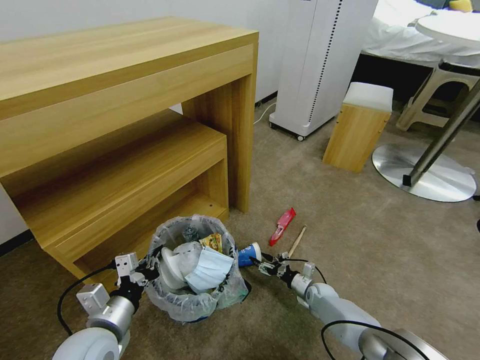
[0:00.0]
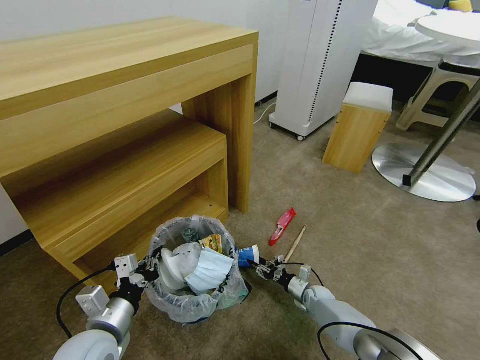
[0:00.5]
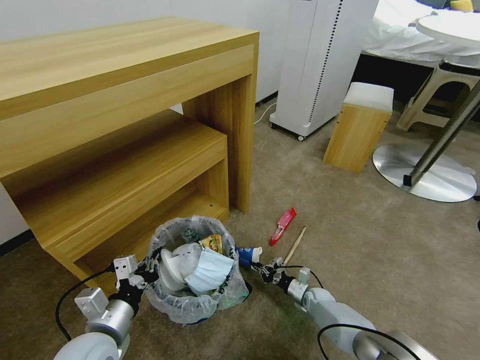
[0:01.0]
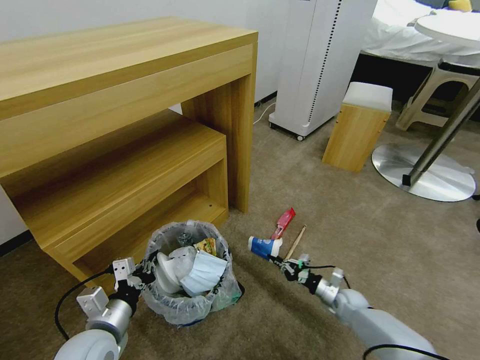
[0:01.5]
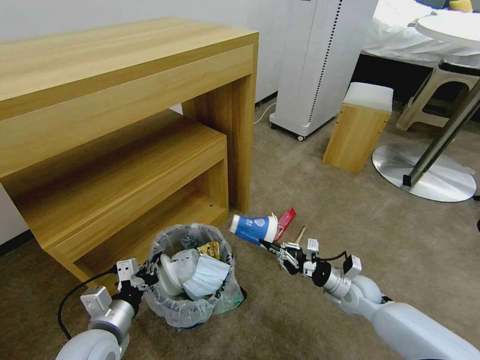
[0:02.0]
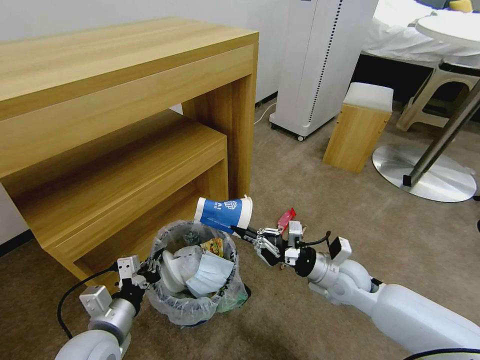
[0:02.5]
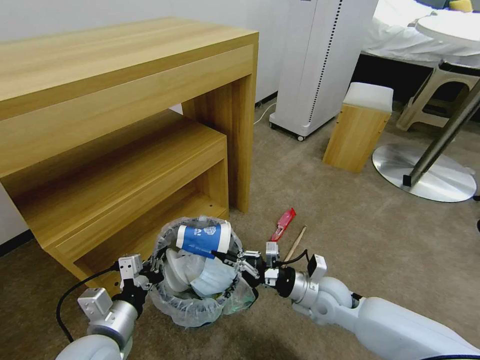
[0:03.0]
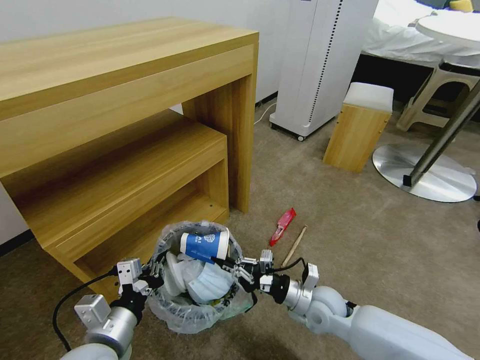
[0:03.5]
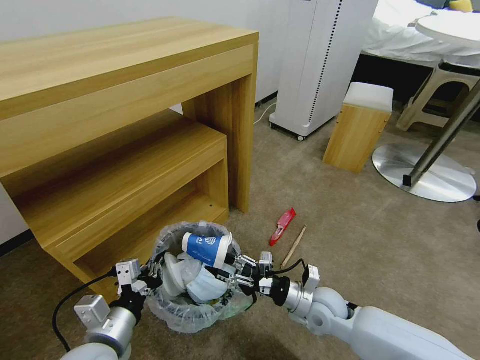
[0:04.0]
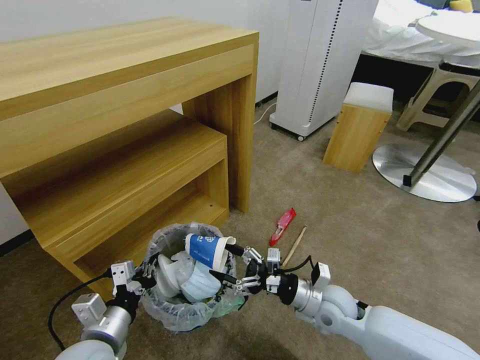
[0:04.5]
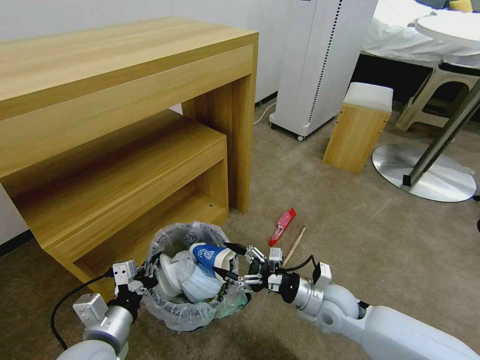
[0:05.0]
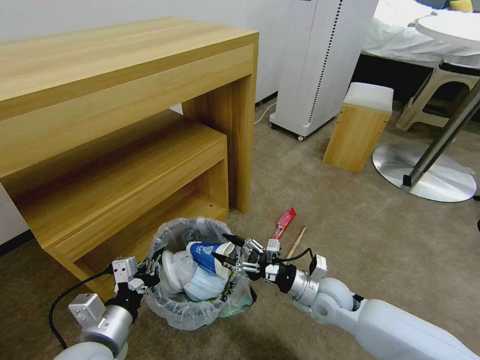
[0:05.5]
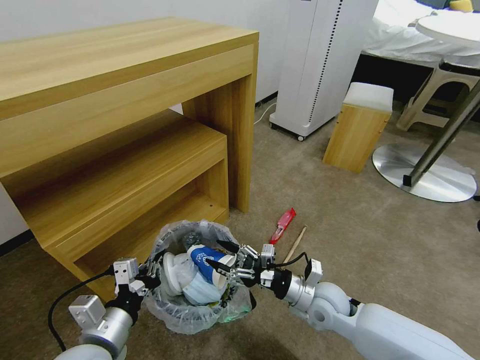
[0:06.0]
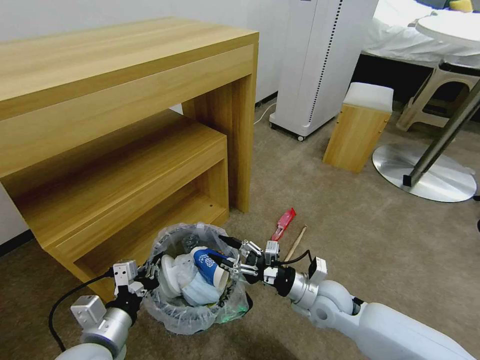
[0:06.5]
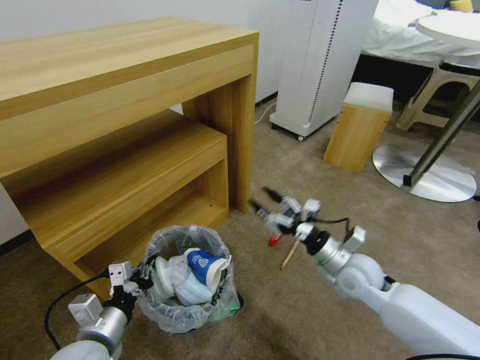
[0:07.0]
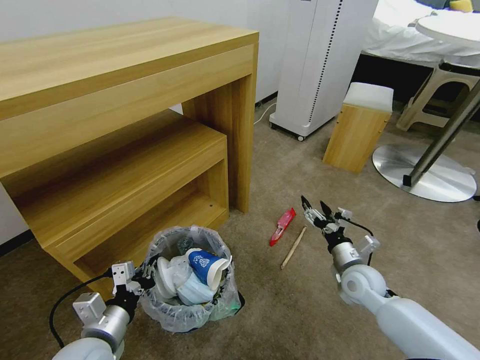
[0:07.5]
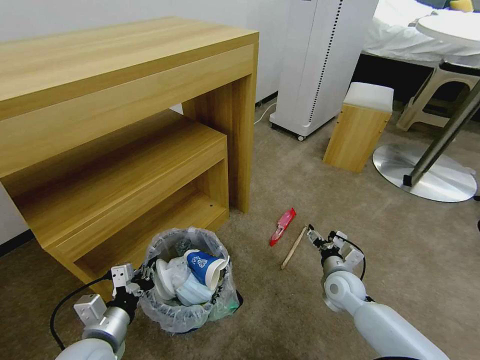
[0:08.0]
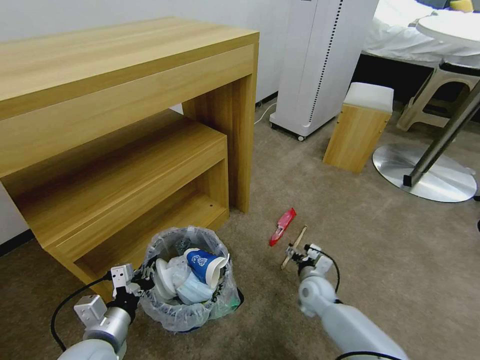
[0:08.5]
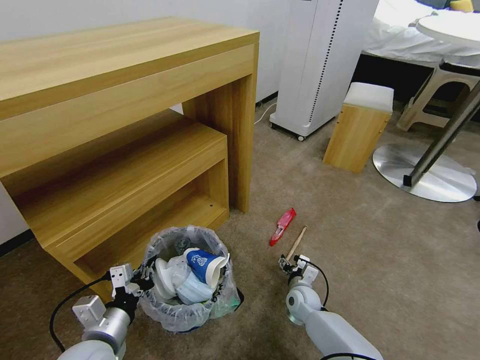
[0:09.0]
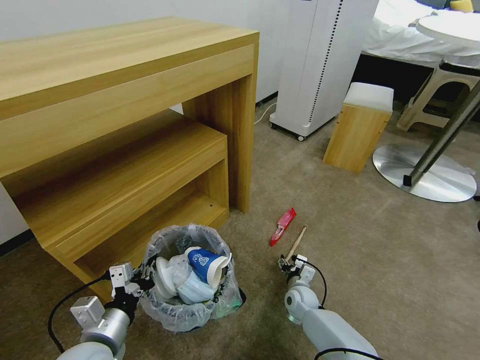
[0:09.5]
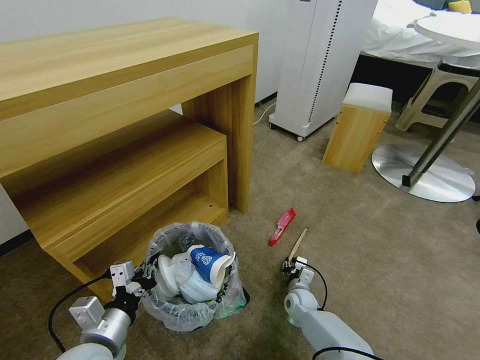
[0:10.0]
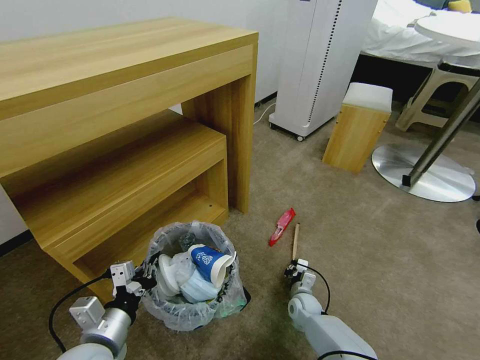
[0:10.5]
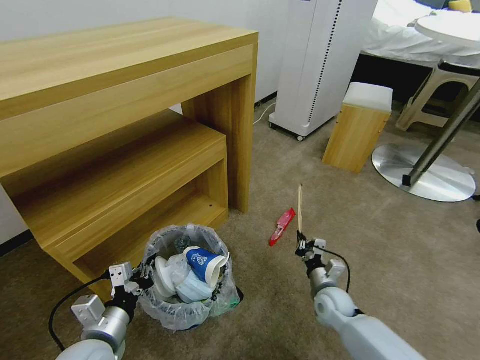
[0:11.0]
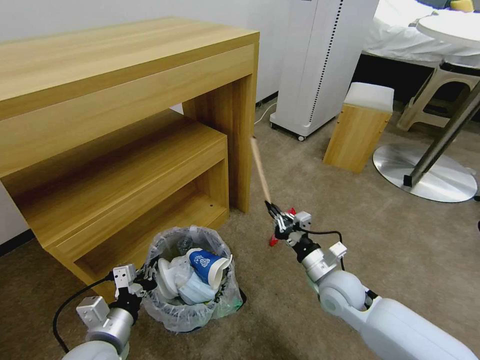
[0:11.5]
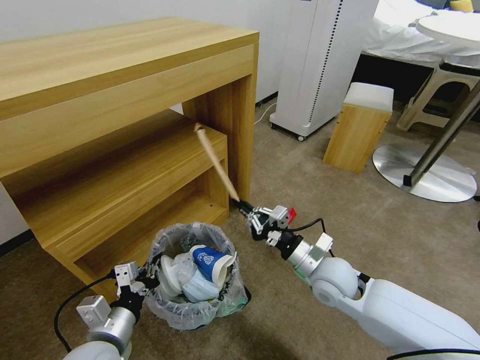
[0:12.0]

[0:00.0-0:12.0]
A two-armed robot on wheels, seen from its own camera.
Task of the whole recording: Pick up the trash bin and place the garbage on the floor into it.
0:00.0 to 0:02.0: The right gripper heads upward, covering approximately 20 cm, and closes.
0:02.0 to 0:04.0: The right gripper is displaced to the left by some 10 cm, and opens up, while the left gripper moves some 5 cm.
0:04.0 to 0:06.0: The grippers make only small movements.
0:06.0 to 0:08.0: The right gripper shifts roughly 10 cm to the right, forward and downward. Meanwhile the left gripper ends up about 5 cm from where it was.
0:08.0 to 0:10.0: The right gripper heads downward and to the left, covering roughly 15 cm, and closes its fingers.
0:10.0 to 0:12.0: The right gripper moves upward, some 25 cm, and closes up.

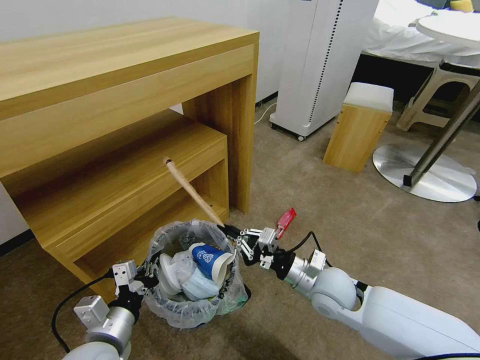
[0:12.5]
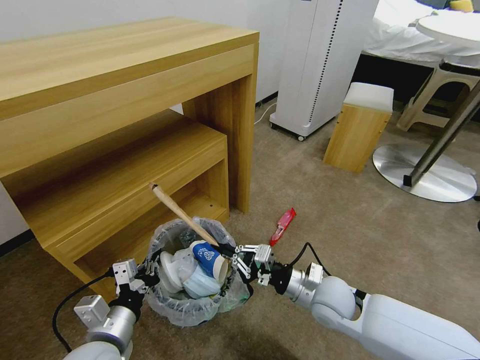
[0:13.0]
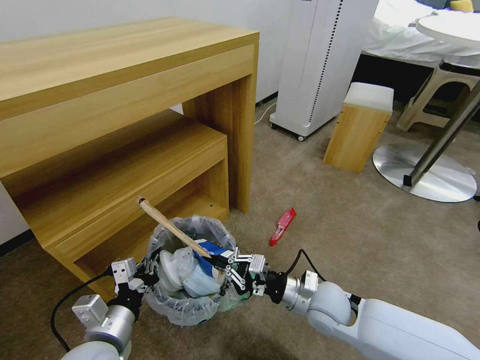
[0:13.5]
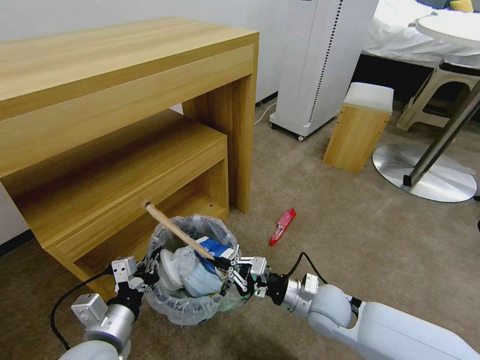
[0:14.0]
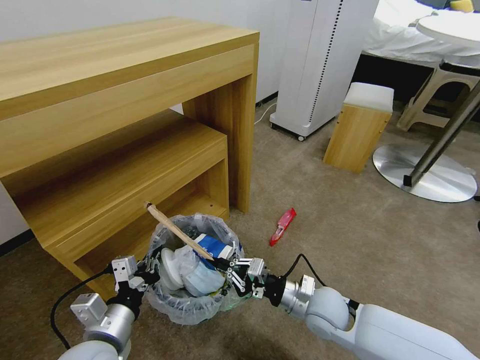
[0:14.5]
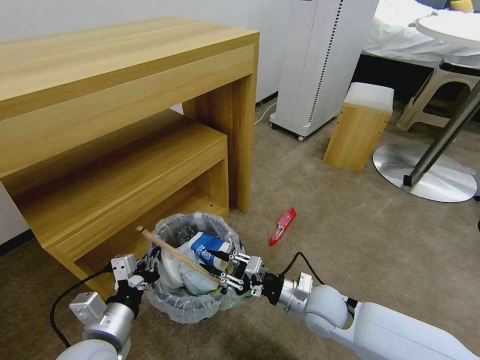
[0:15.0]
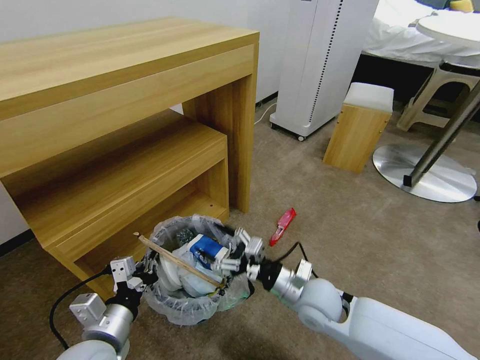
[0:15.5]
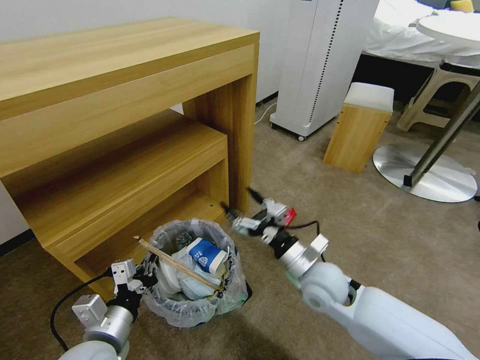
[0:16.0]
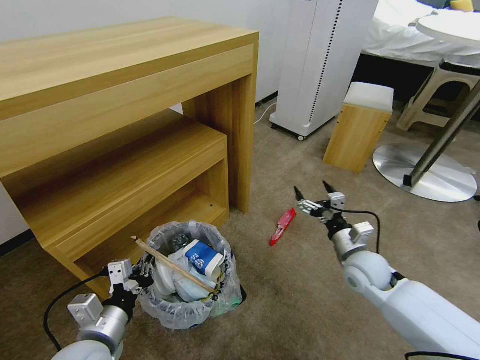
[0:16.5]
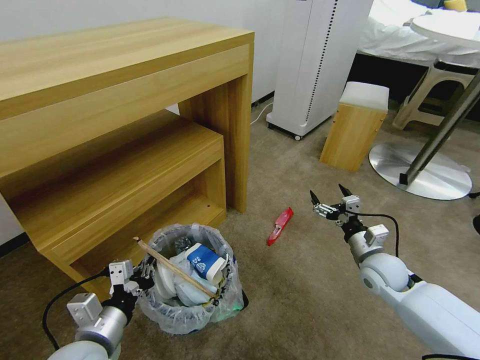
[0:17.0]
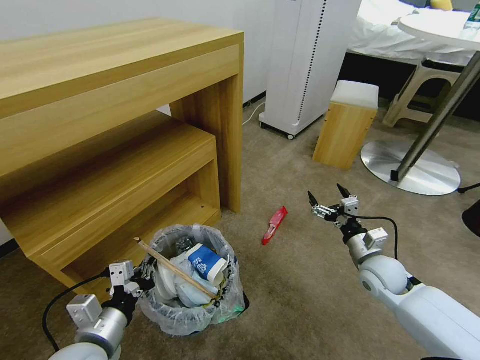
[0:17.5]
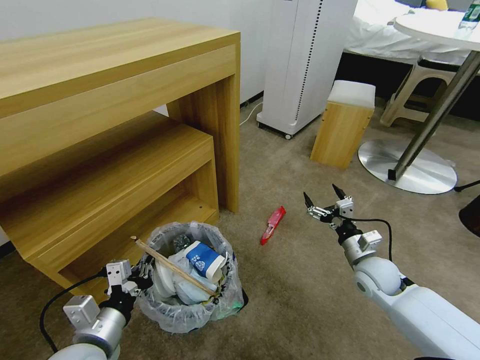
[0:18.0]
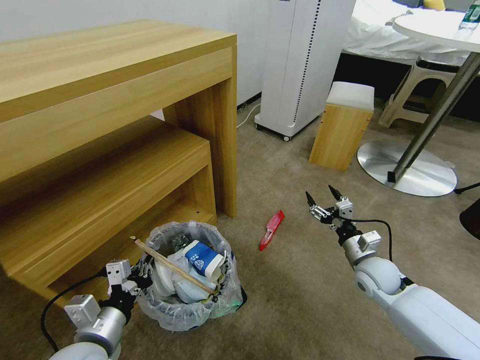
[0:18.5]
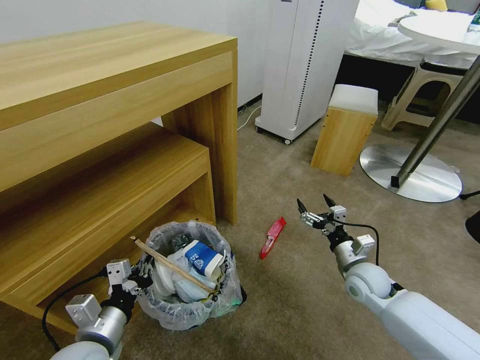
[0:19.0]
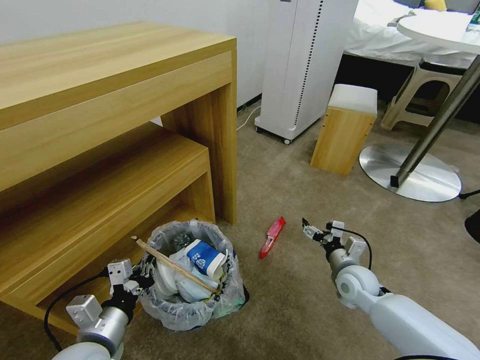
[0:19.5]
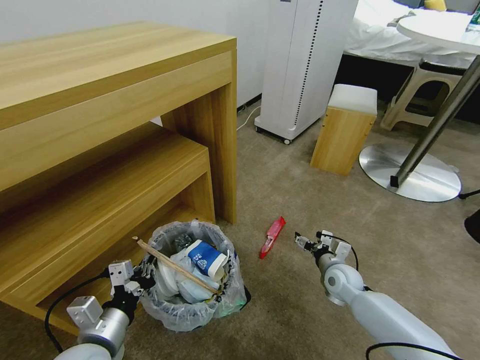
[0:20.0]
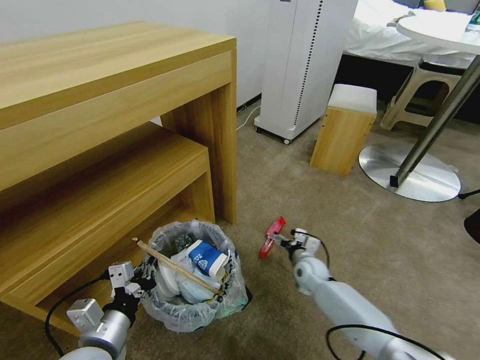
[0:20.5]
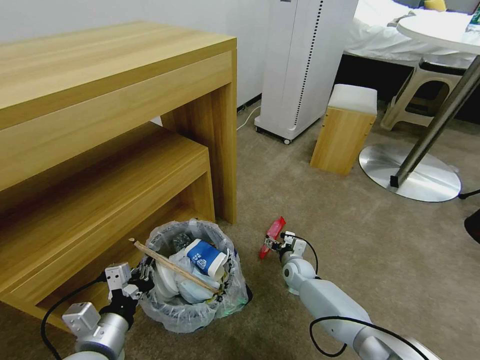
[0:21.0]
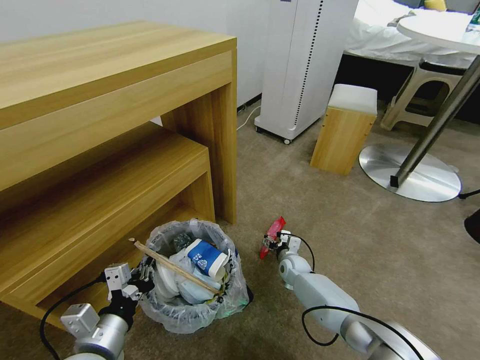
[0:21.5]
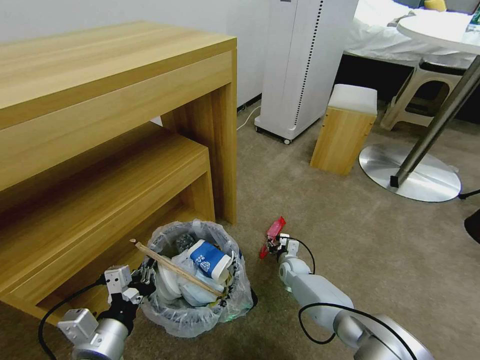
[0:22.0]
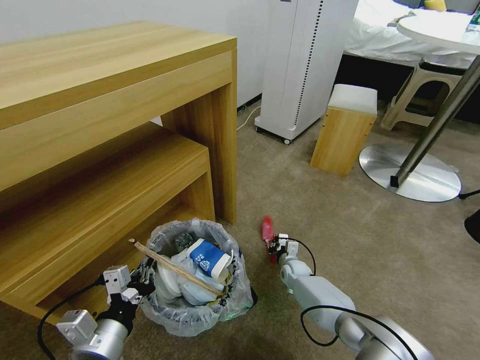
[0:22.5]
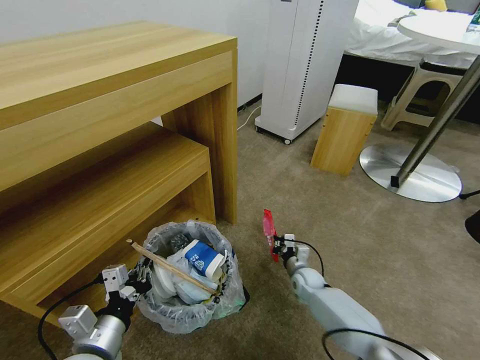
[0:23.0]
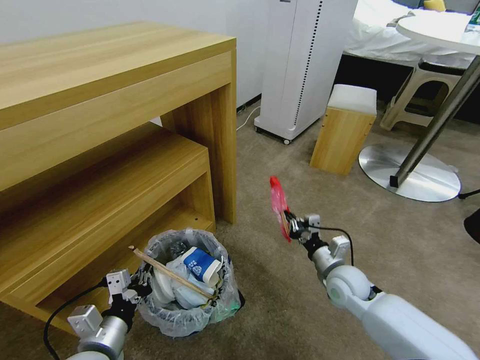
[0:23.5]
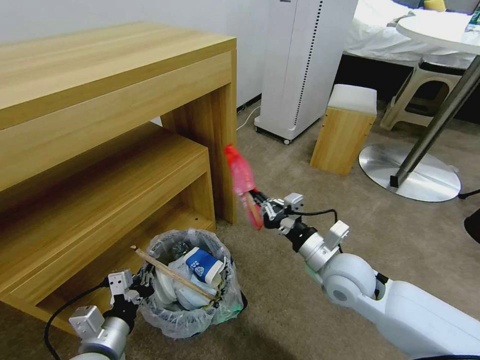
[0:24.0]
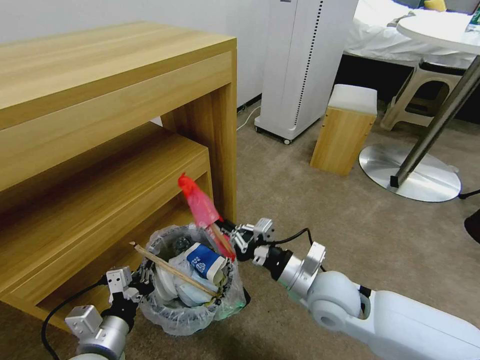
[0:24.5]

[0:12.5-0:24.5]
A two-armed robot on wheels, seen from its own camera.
Task of the whole recording: Pick up the trash bin and place the garbage on the floor into it.
0:12.5 to 0:14.5: The right gripper changes place by some 5 cm.
0:14.5 to 0:16.5: The right gripper moves to the right and forward, some 15 cm, and opens up.
0:16.5 to 0:18.5: The right gripper moves about 5 cm.
0:18.5 to 0:20.5: The right gripper shifts some 20 cm to the left, downward and forward.
0:20.5 to 0:22.5: The right gripper goes roughly 10 cm downward, and closes up.
0:22.5 to 0:24.5: The right gripper shifts some 35 cm upward and backward.

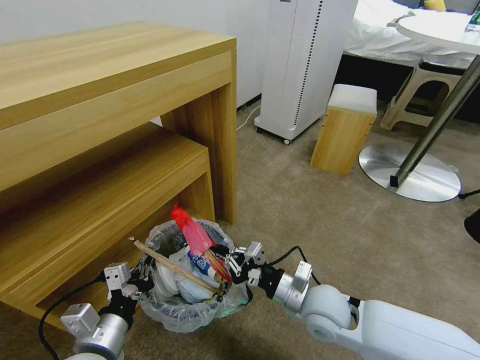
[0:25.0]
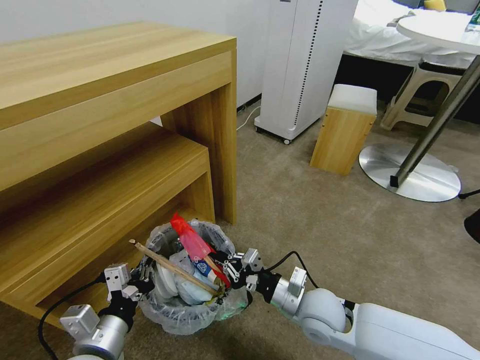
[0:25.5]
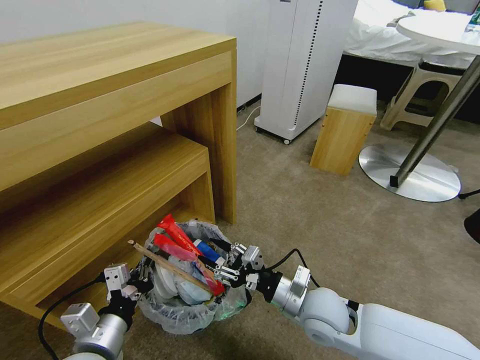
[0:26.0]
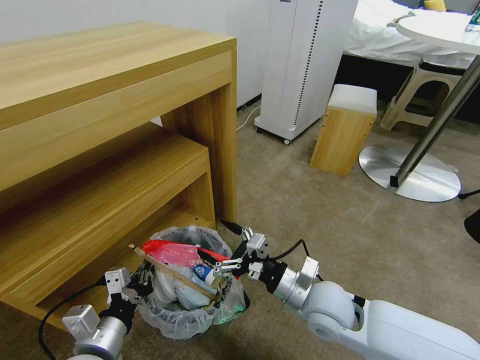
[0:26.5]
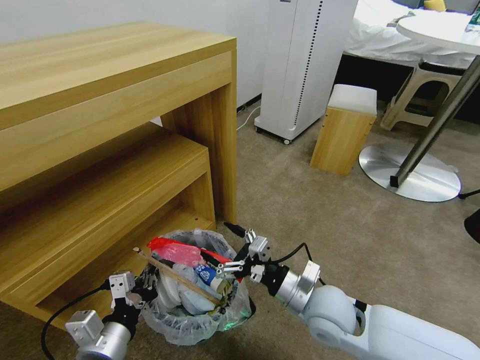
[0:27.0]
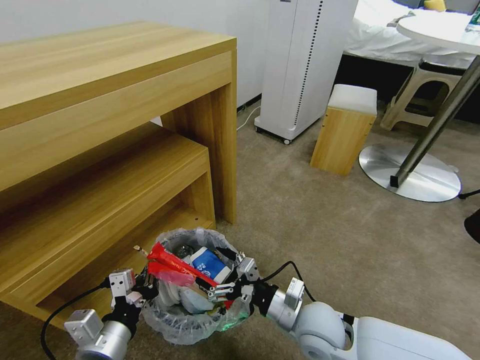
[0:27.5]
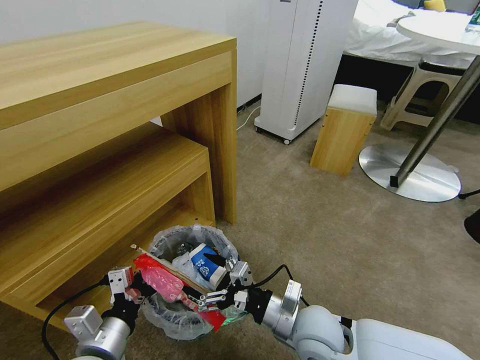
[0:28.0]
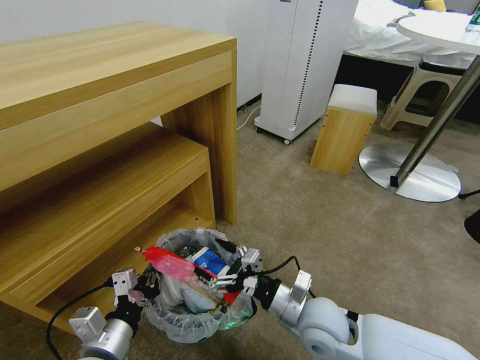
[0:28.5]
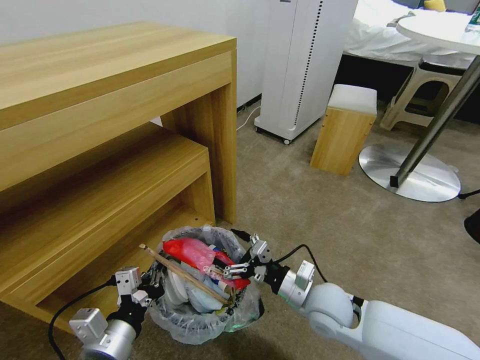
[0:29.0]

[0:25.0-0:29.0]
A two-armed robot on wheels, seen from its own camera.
Task of the whole recording: Pick up the trash bin and place the garbage on the floor into it.
0:25.0 to 0:27.0: The right gripper opens.
0:27.0 to 0:29.0: The grippers move only a little.
